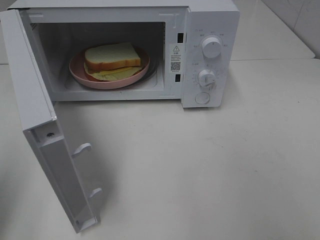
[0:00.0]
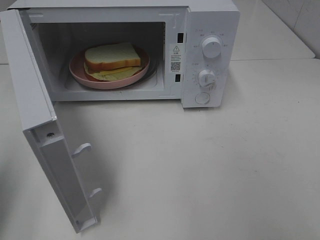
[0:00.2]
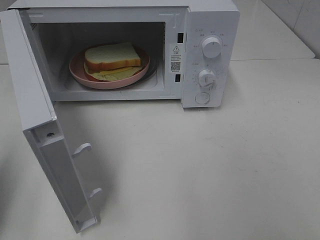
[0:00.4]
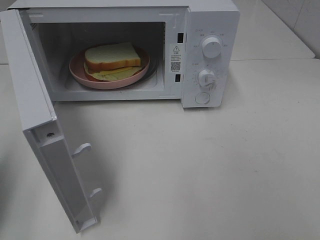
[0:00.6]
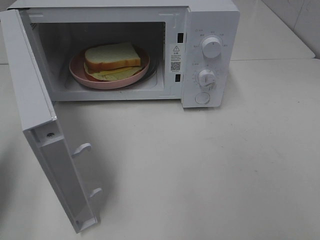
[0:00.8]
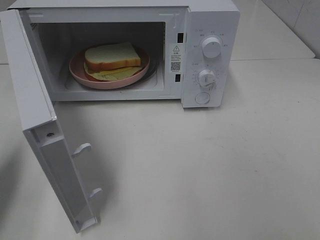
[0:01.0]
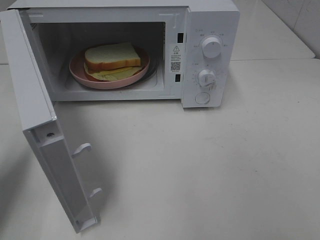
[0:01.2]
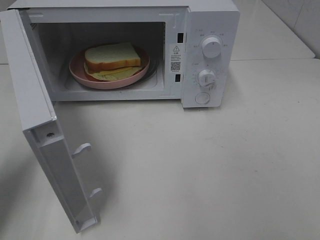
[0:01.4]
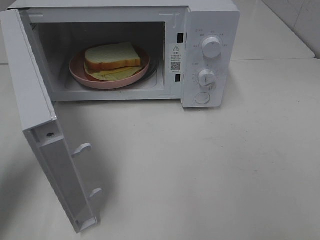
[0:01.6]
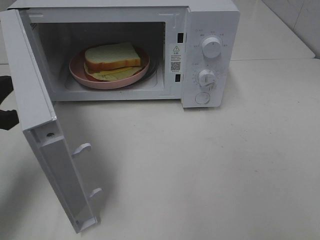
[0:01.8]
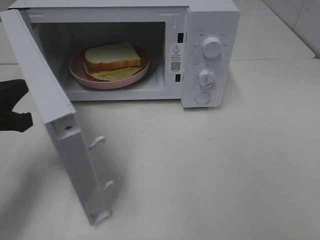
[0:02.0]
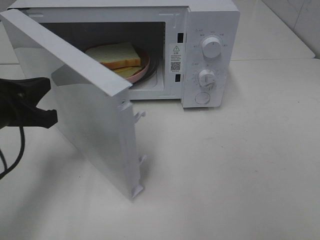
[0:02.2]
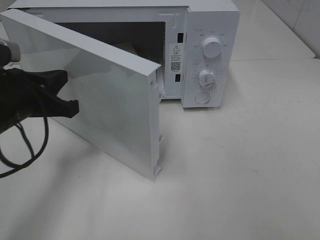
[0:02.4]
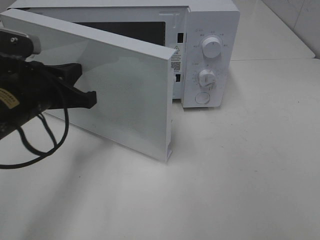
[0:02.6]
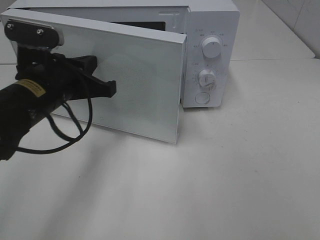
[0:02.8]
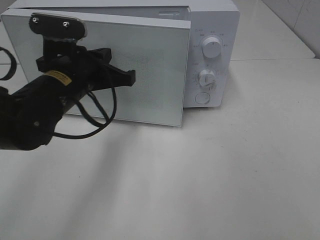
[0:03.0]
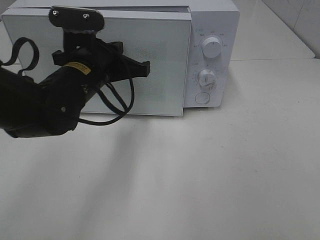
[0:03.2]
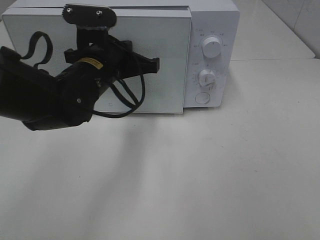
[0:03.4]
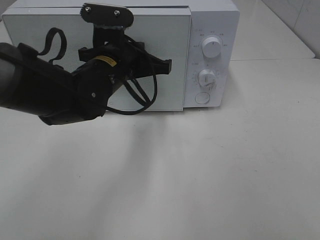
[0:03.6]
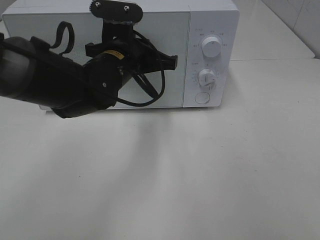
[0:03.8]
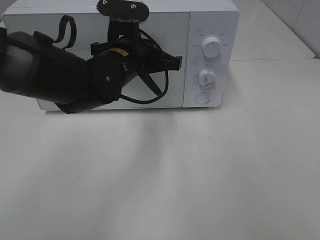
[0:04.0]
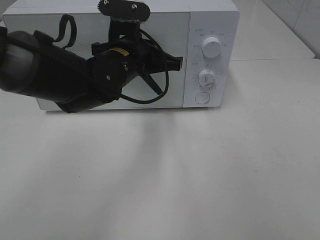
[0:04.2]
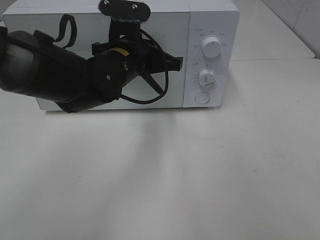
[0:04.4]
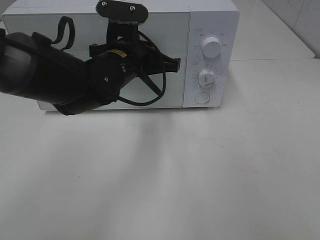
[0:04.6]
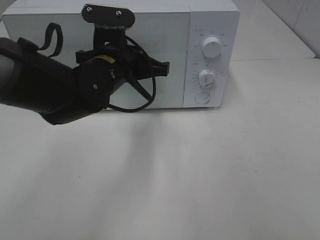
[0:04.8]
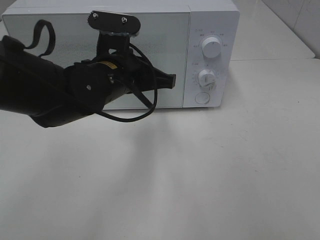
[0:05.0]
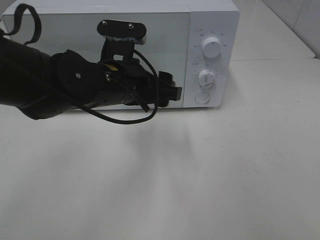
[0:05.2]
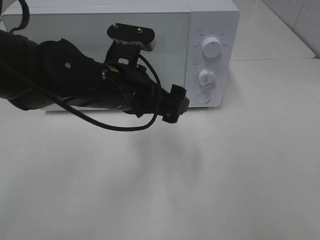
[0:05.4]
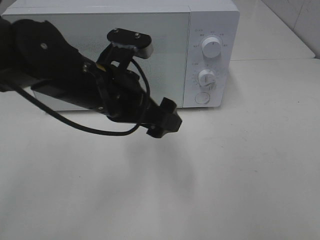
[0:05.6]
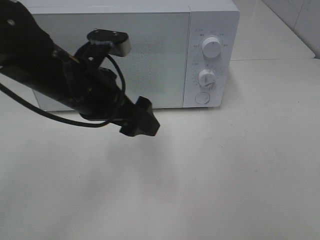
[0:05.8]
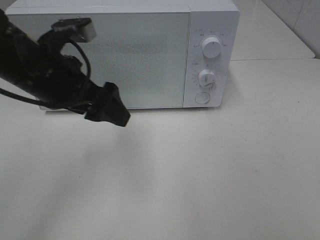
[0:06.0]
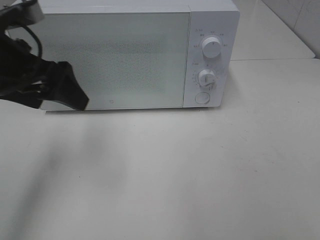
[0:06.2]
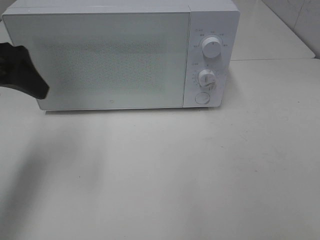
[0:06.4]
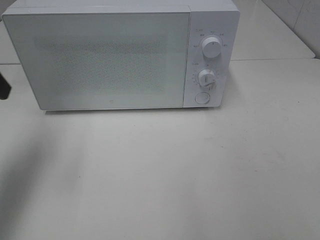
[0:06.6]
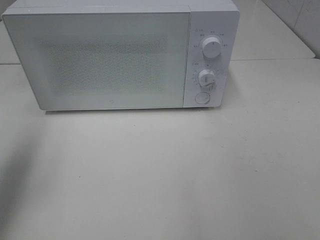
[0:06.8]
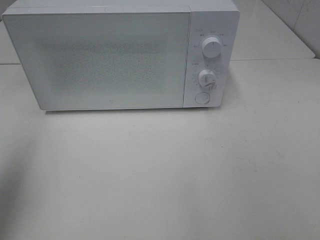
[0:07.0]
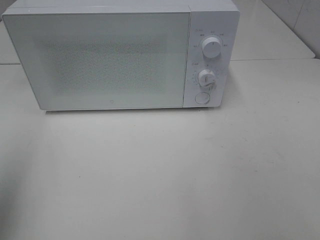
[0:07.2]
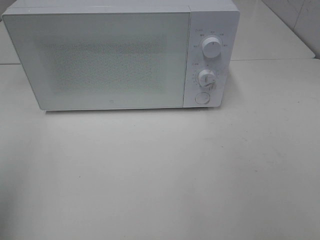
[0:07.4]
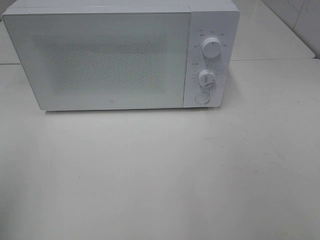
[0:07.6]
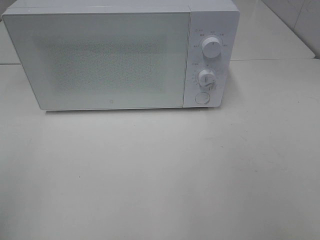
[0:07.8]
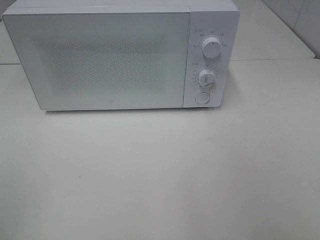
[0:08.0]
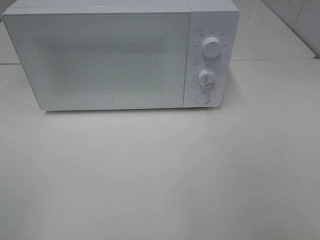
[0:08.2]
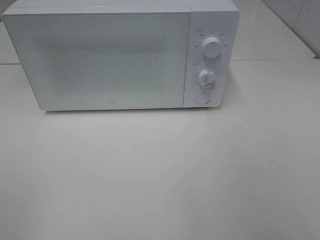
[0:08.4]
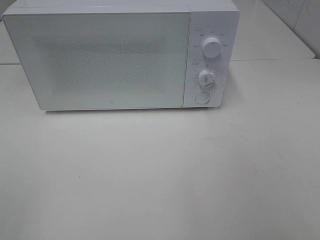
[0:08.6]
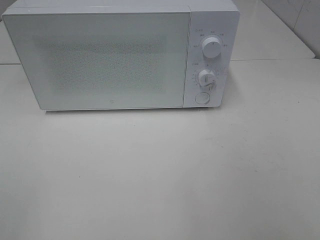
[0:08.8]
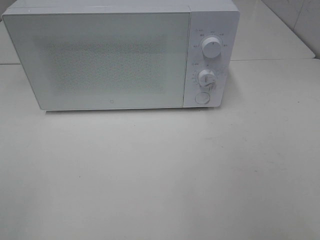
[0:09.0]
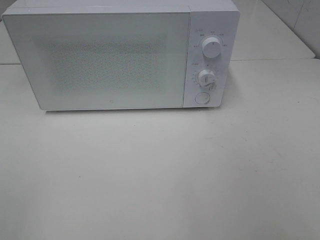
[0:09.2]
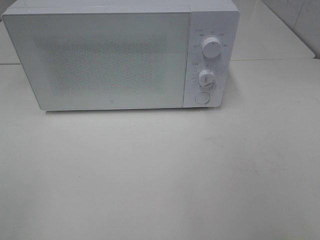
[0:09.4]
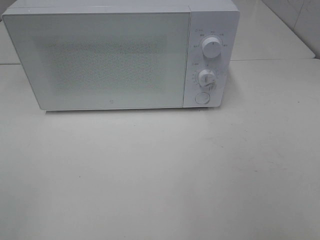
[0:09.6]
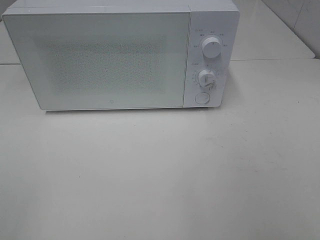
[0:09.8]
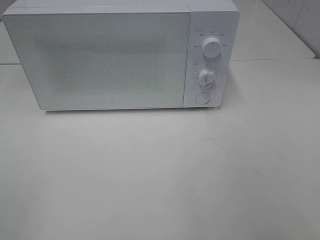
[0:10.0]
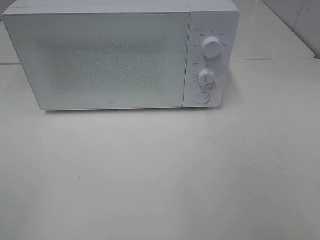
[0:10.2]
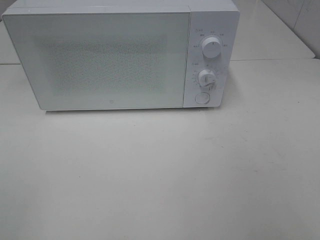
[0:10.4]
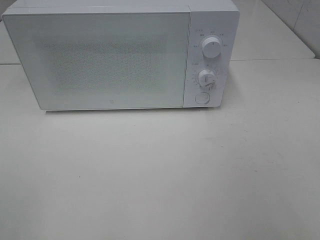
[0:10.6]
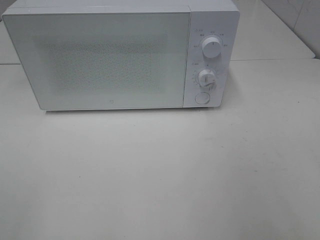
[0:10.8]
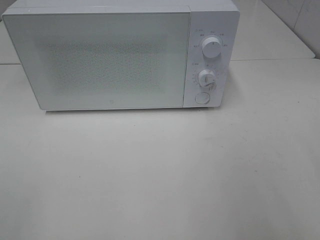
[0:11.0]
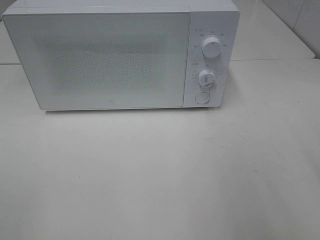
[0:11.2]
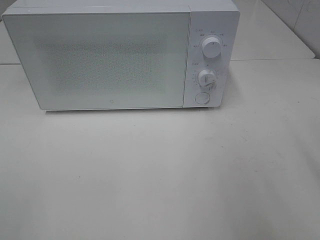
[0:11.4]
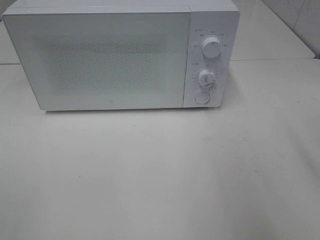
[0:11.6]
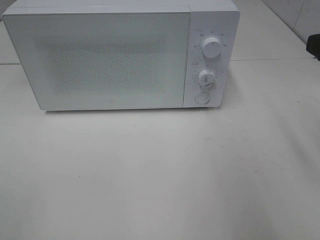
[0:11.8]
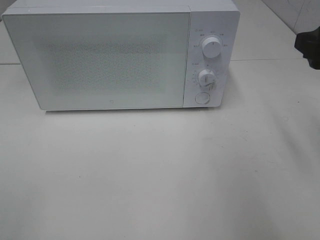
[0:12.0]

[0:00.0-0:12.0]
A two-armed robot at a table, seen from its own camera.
Task of the whole recording: Heat Sandwich.
Step, 0:00.0 to 0:05.0: Left hand: close the microwave door.
0:00.0 to 0:01.6: The left gripper heads forward and downward, covering roughly 15 cm.
0:01.6 to 0:03.0: The left gripper goes some 20 cm to the right and forward.
0:03.0 to 0:04.4: The left gripper shifts about 10 cm to the right and forward.
0:04.4 to 0:06.0: The left gripper moves to the left, backward and upward, about 15 cm, and opens.
0:06.0 to 0:07.6: The left gripper shifts roughly 25 cm backward and to the left.
0:09.0 to 0:10.4: Neither gripper changes place.
0:10.4 to 0:12.0: The right gripper goes roughly 20 cm forward.

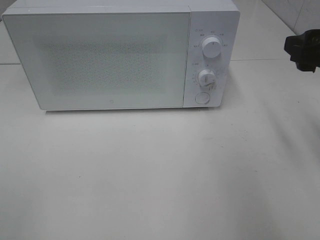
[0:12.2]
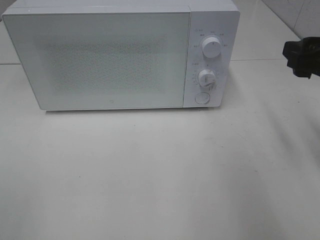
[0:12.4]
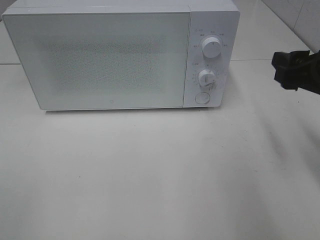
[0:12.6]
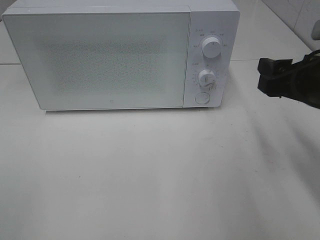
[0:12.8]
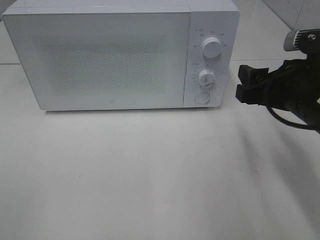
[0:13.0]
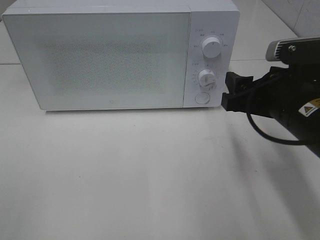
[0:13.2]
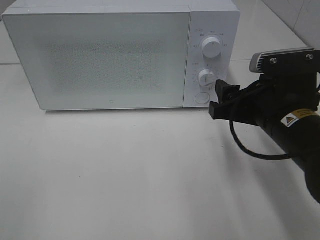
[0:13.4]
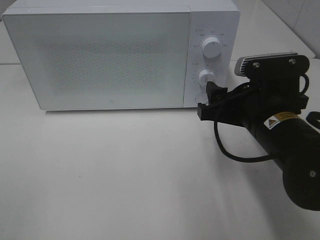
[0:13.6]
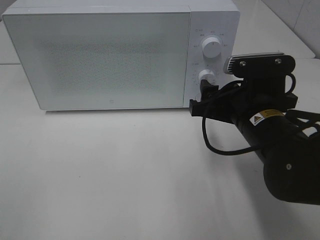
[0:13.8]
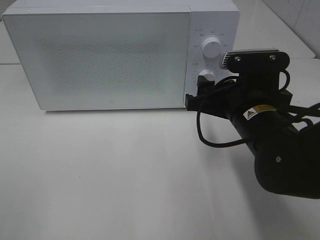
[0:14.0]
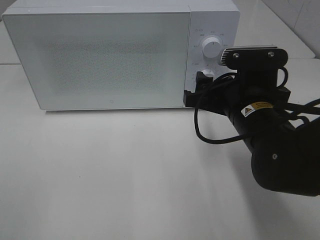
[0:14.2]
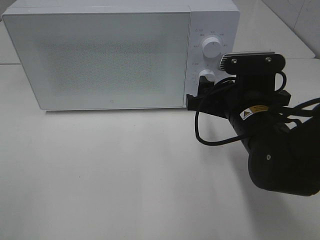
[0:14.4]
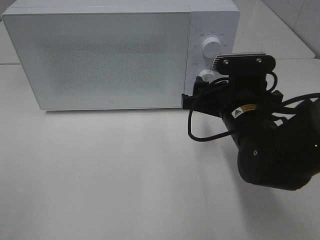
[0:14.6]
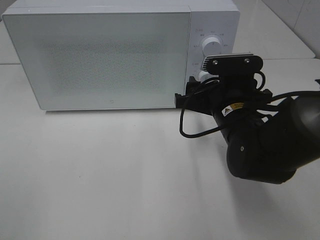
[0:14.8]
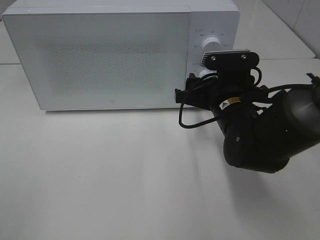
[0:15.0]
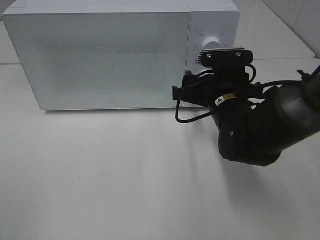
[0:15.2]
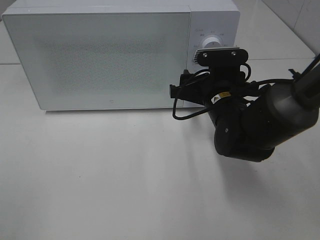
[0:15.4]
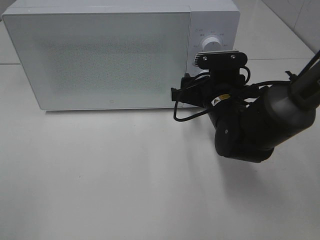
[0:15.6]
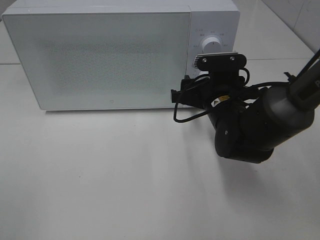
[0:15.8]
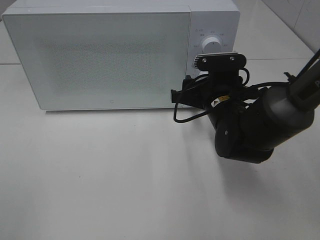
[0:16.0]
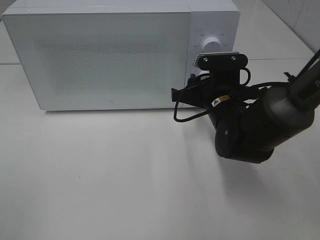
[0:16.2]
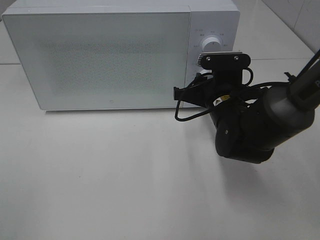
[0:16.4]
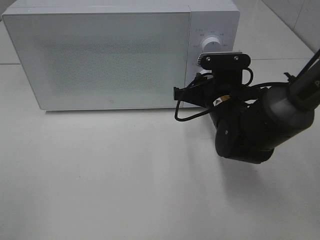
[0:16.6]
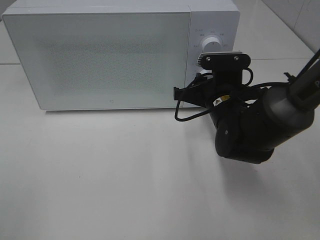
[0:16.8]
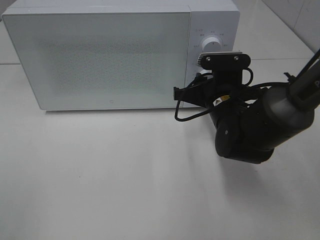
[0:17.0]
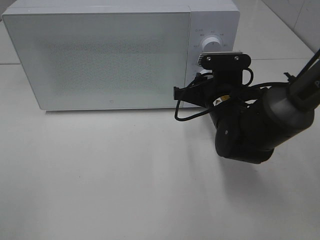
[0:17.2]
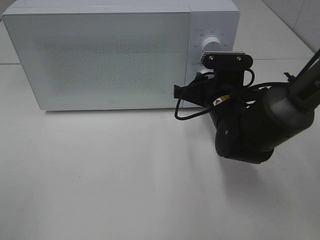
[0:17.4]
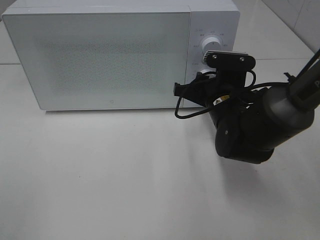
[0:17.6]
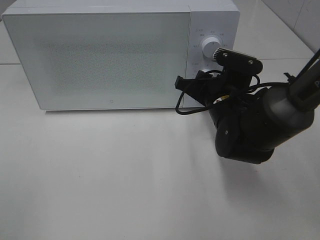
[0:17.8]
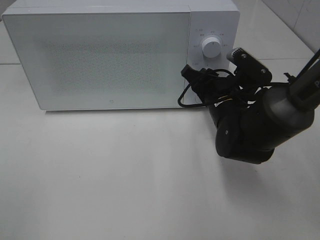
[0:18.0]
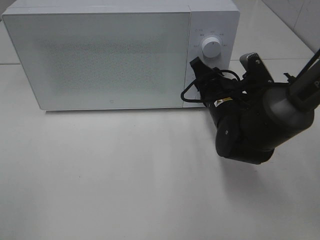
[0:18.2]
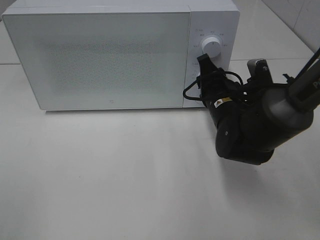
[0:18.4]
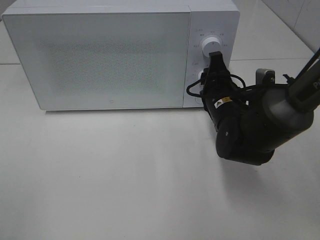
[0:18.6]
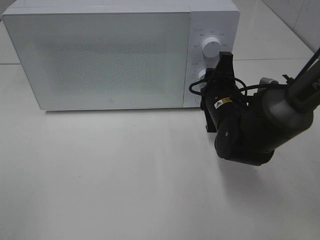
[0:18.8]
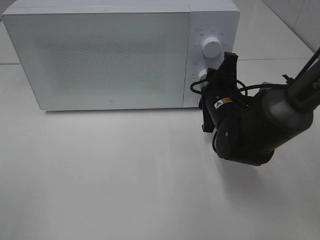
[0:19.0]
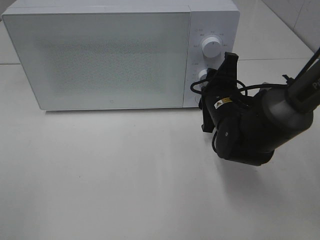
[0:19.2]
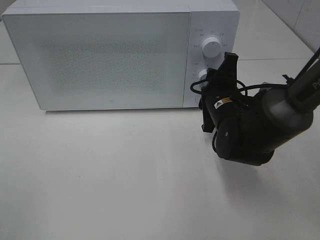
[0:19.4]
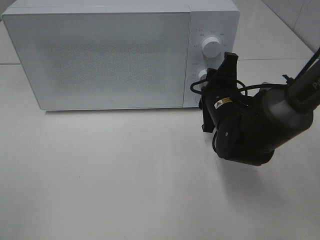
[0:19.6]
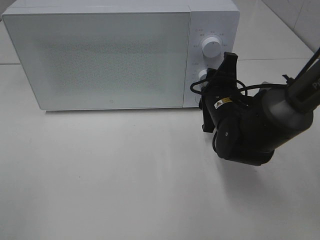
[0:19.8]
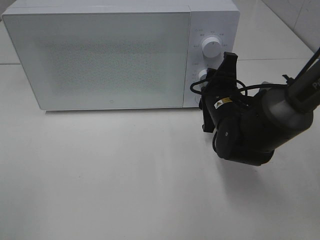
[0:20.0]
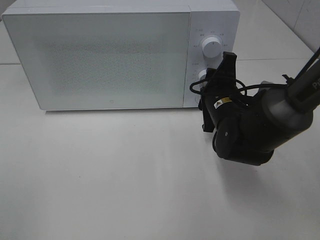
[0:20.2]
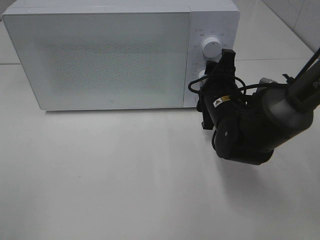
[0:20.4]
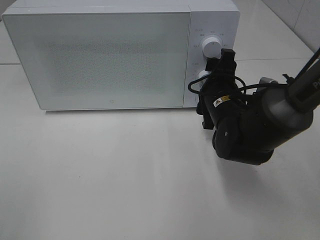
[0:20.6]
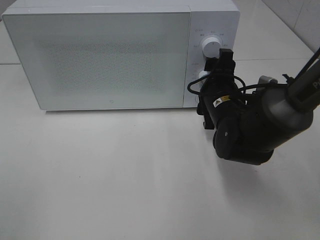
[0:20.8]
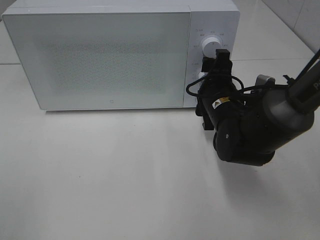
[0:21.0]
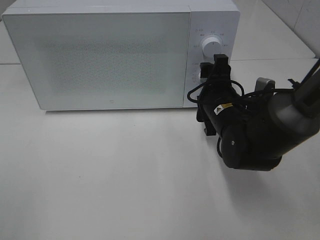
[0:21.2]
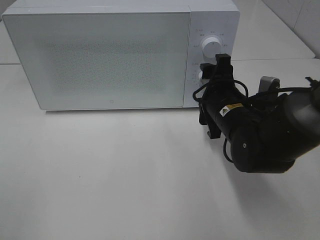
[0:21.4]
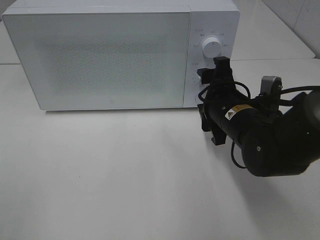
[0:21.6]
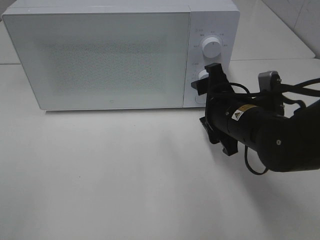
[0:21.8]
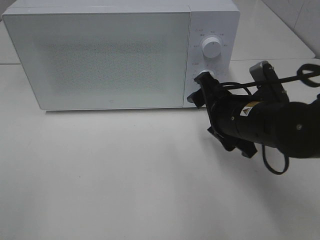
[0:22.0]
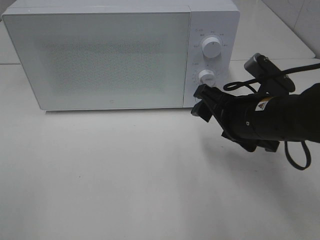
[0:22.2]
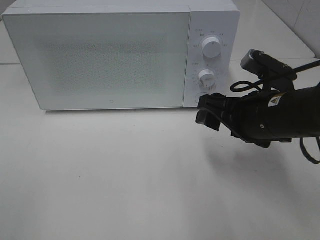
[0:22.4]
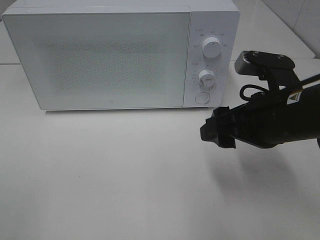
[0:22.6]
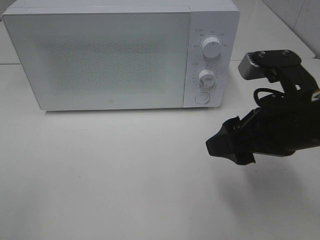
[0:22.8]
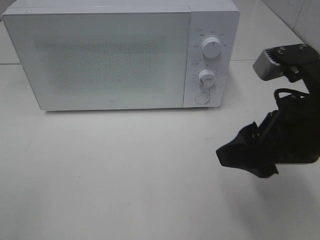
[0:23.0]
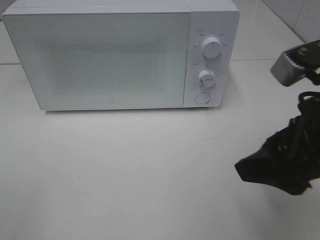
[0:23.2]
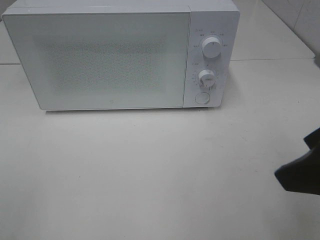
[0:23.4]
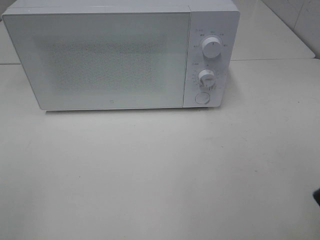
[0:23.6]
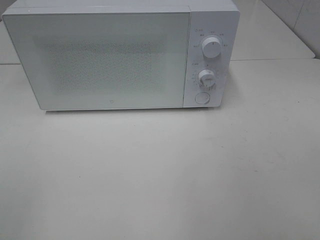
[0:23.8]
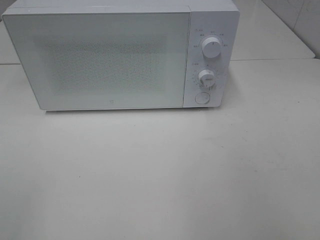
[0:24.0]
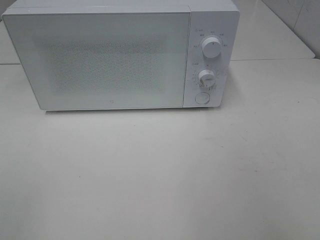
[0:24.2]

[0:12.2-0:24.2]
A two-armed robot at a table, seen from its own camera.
Task of the whole recording: Heat Sandwich.
Step, 0:12.2 to 0:21.2: Right hand: twist timer button.
0:12.2 to 0:13.8: The right gripper shifts roughly 15 cm to the left and downward.
0:13.8 to 0:15.2: The right gripper goes about 5 cm forward.
0:15.2 to 0:16.6: The right gripper closes its fingers.
0:19.8 to 0:21.2: The right gripper opens up.
0:21.2 to 0:22.6: The right gripper travels backward and upward by roughly 10 cm.
0:22.6 to 0:24.2: The right gripper goes approximately 25 cm backward, upward and to the right.
